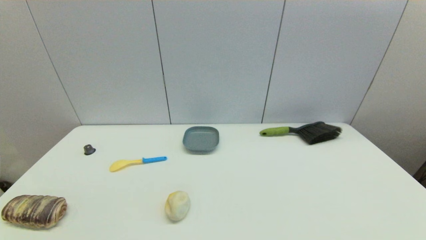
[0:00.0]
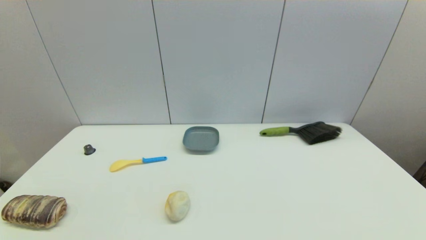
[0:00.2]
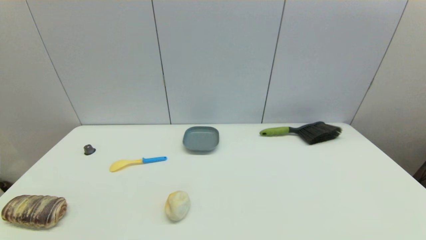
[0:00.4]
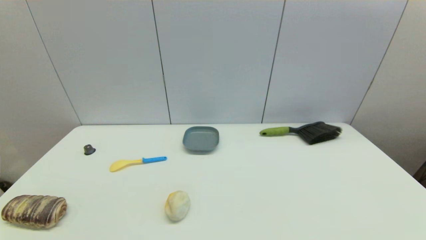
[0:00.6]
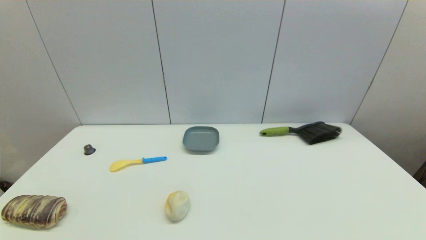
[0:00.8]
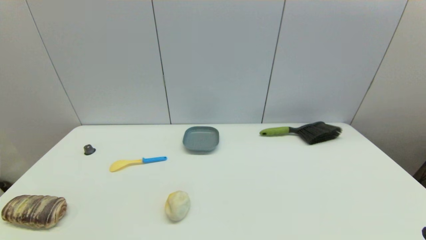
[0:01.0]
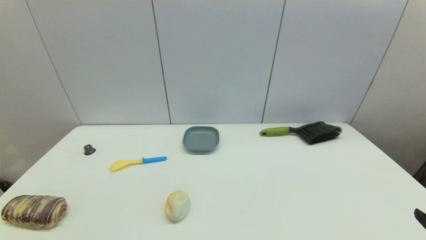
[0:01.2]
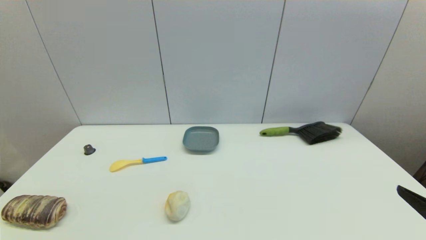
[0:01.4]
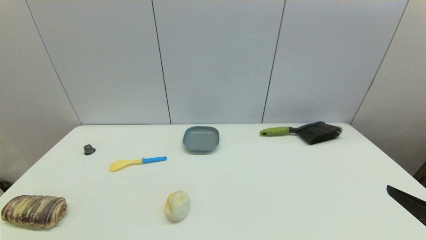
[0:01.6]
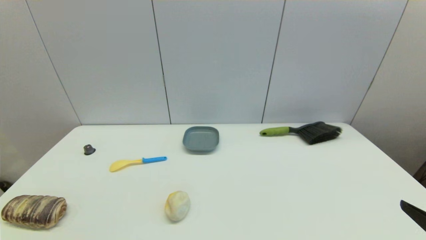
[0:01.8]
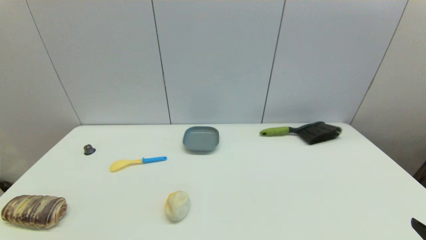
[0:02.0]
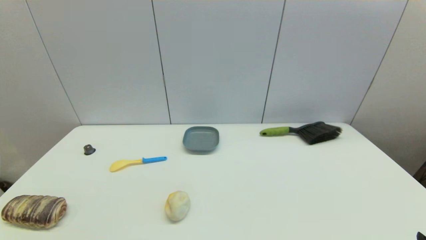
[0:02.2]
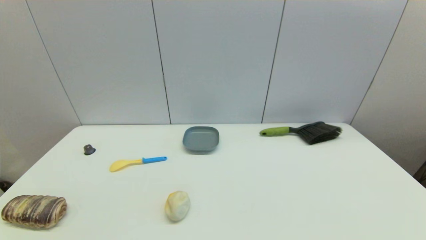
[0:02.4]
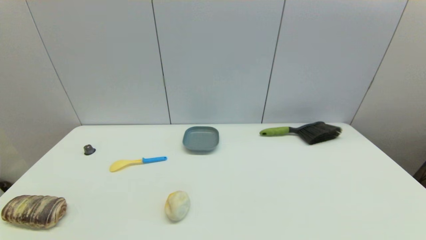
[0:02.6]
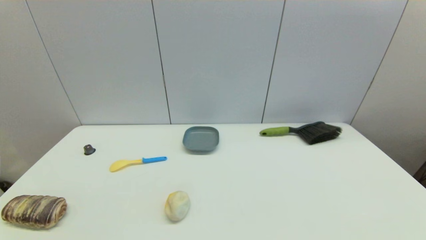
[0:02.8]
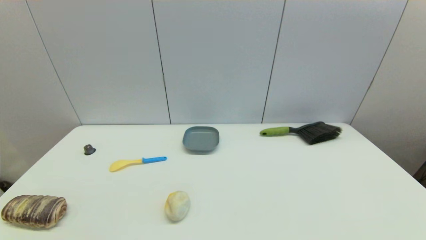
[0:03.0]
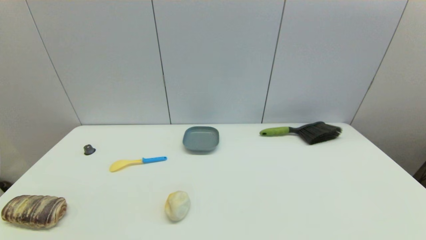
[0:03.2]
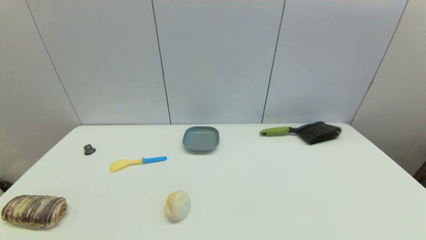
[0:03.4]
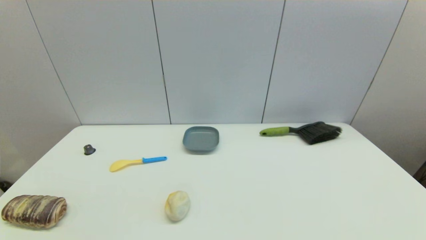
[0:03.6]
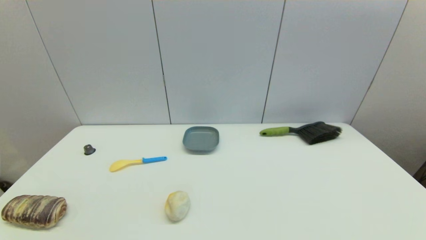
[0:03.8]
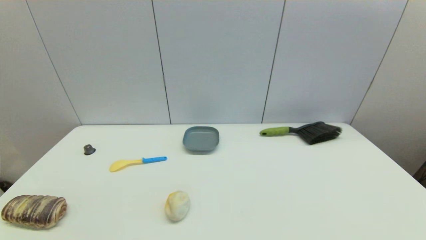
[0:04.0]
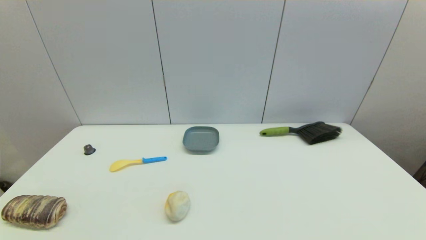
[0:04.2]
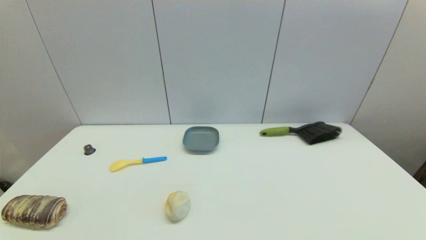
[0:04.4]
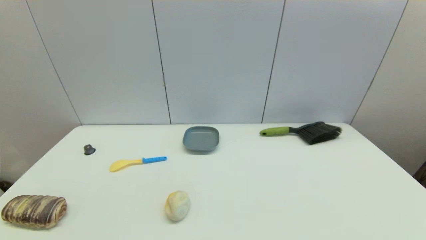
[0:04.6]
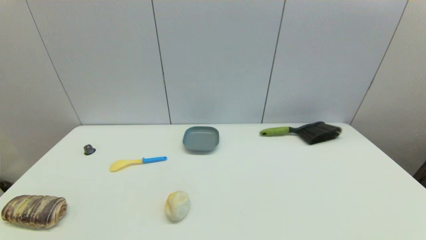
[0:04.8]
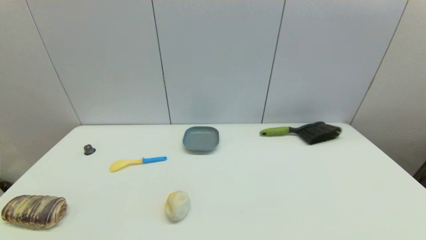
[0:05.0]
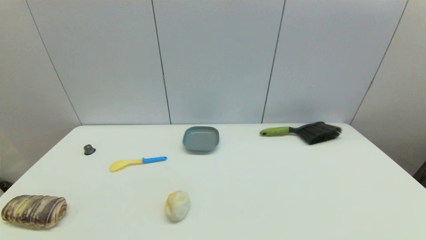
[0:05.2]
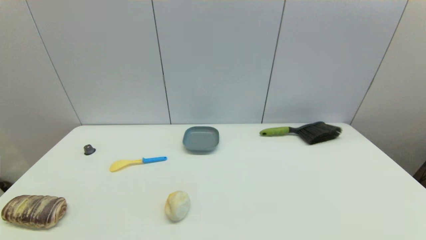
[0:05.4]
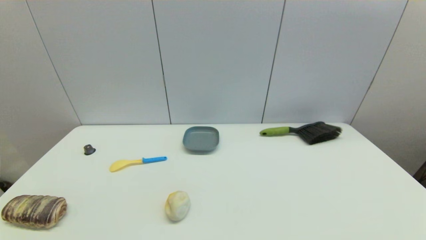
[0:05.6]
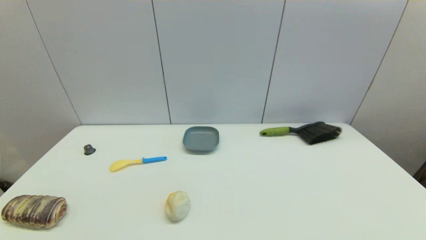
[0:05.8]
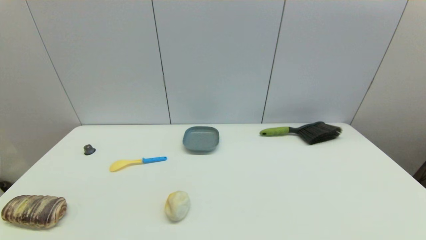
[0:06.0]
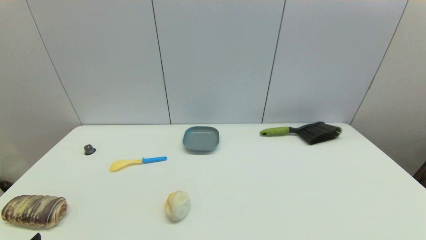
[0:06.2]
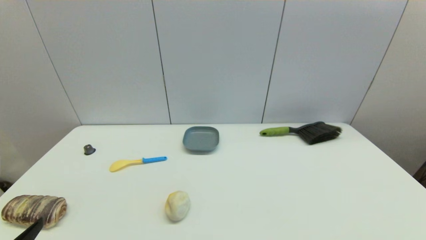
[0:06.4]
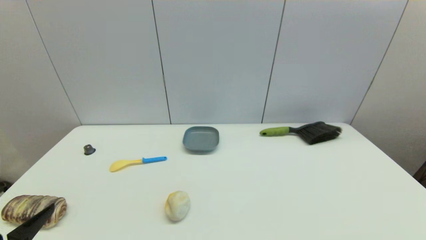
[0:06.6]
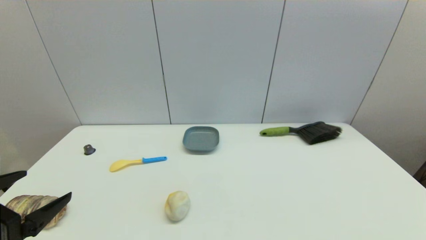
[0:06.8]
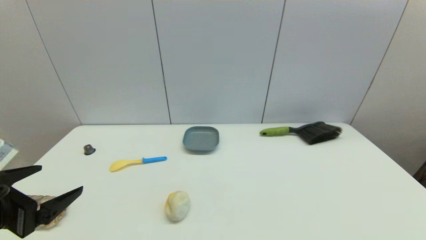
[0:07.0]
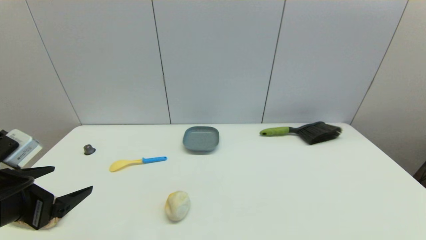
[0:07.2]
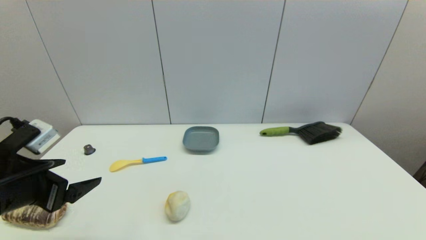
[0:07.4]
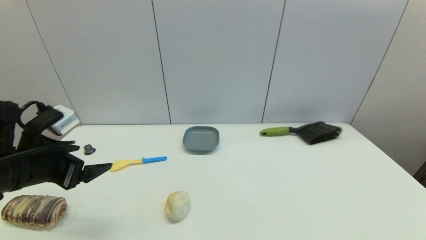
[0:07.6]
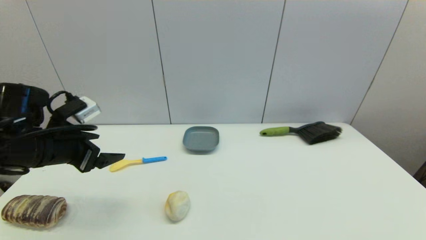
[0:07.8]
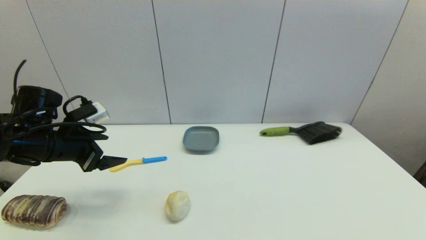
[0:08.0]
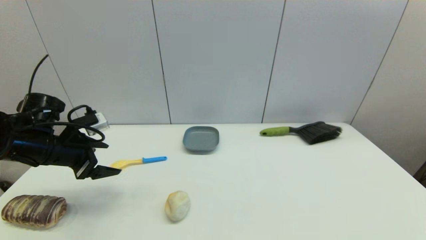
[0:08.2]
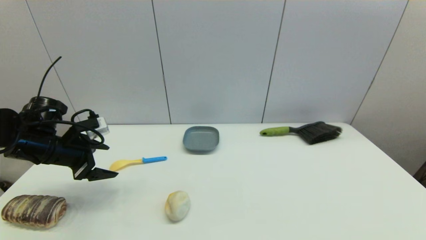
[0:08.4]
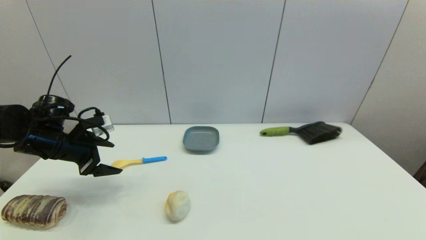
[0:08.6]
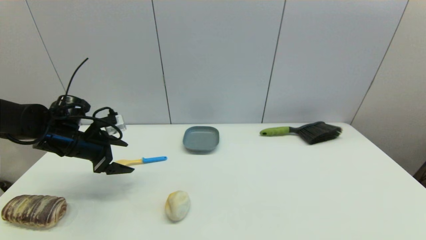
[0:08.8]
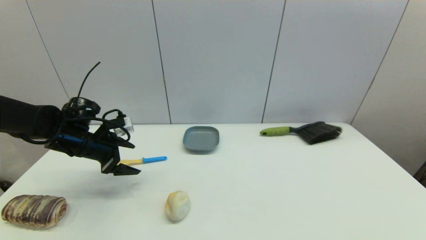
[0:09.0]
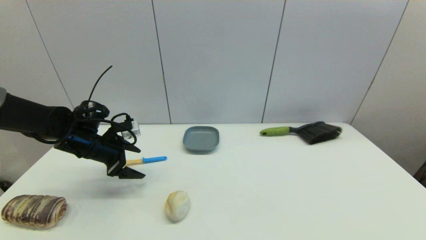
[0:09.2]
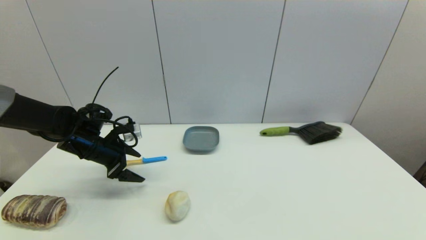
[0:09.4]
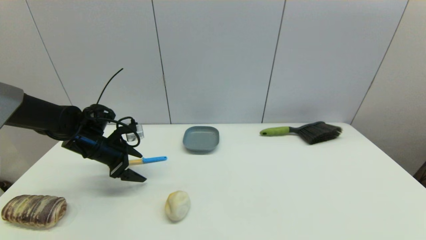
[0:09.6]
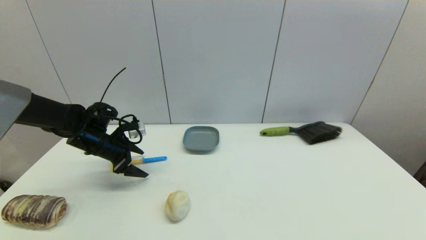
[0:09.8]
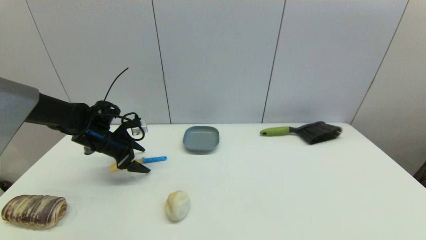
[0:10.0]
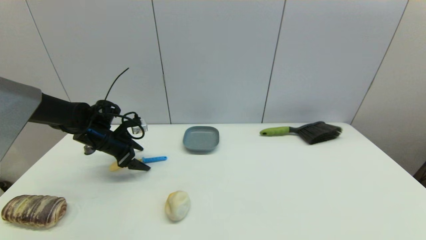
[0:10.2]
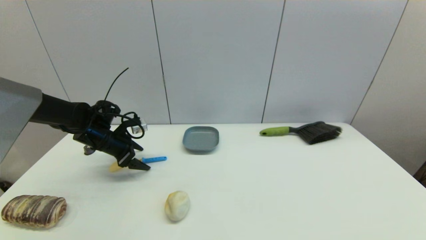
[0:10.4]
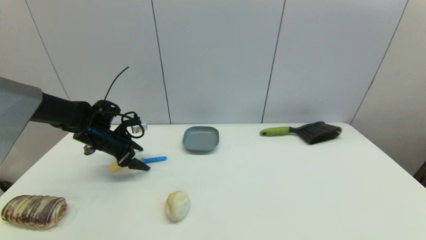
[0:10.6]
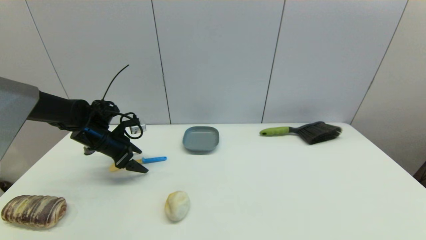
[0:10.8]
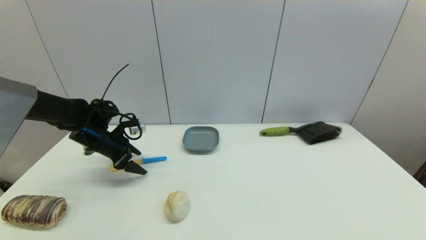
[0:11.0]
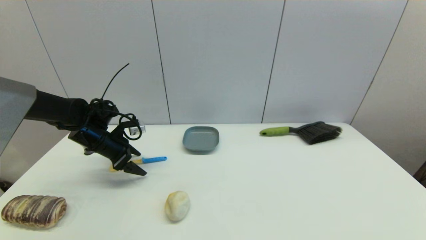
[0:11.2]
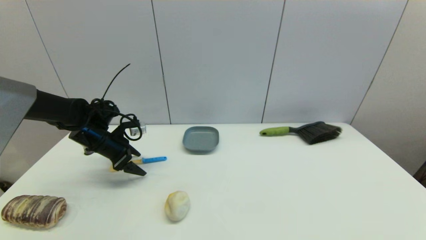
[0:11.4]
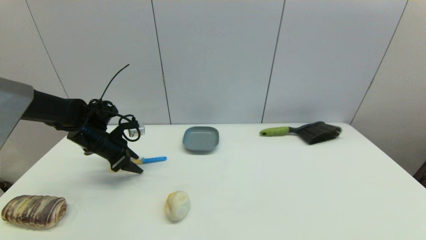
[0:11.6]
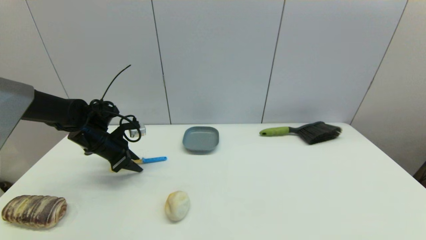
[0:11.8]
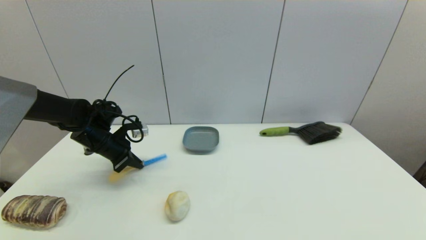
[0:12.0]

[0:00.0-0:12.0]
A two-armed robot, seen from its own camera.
0:00.0 to 0:01.6: The right gripper shifts some 15 cm upward and forward.
0:01.6 to 0:03.0: The right gripper goes some 15 cm downward and backward.
0:06.0 to 0:07.6: The left gripper shifts about 20 cm forward and upward.
0:07.6 to 0:09.0: The left gripper moves forward and downward, roughly 15 cm.
0:09.0 to 0:10.4: The left gripper goes approximately 5 cm forward.
0:10.4 to 0:12.0: The left gripper closes its fingers.

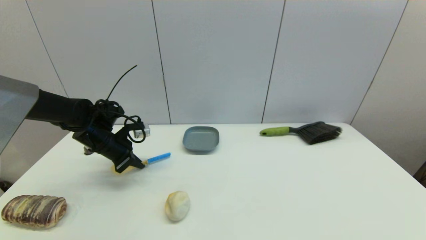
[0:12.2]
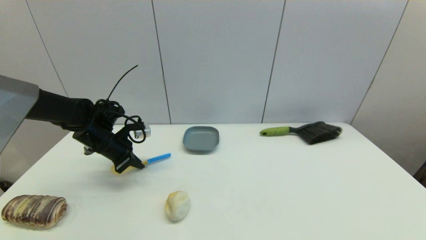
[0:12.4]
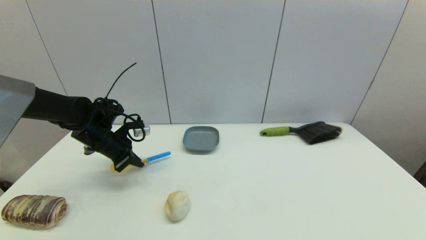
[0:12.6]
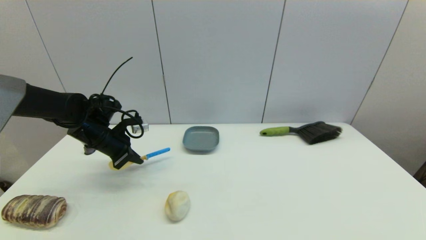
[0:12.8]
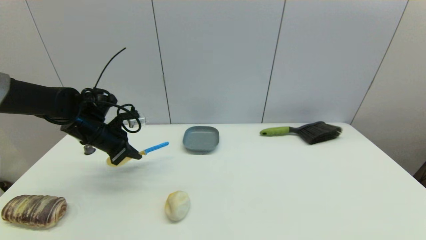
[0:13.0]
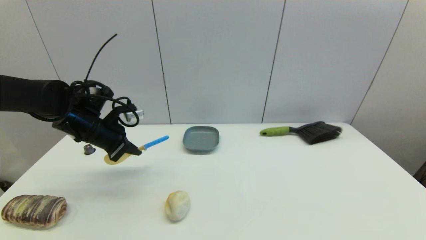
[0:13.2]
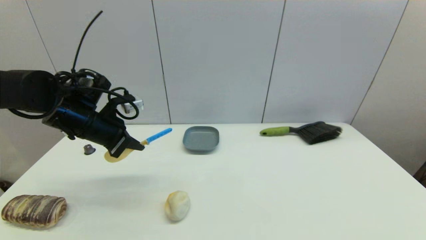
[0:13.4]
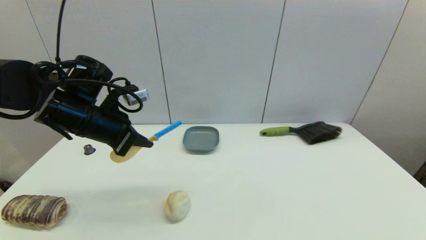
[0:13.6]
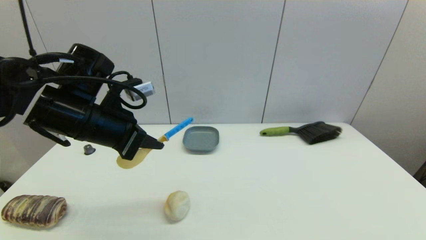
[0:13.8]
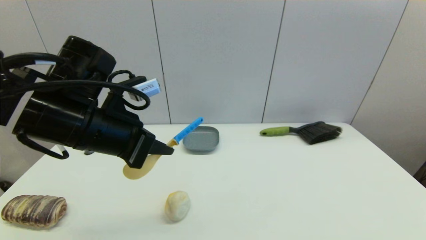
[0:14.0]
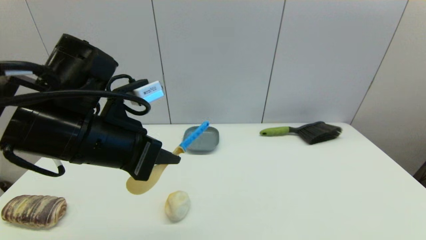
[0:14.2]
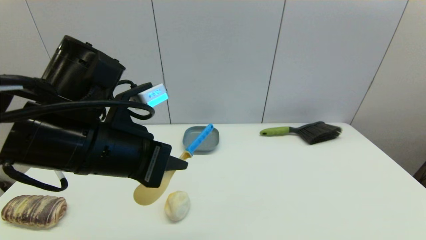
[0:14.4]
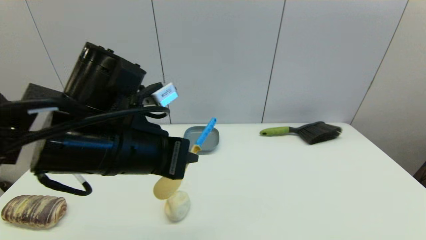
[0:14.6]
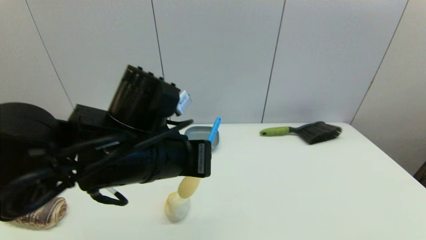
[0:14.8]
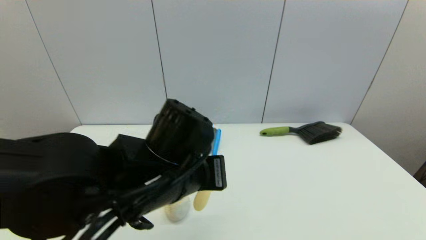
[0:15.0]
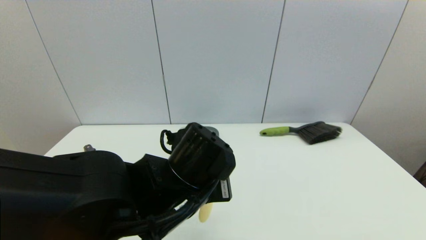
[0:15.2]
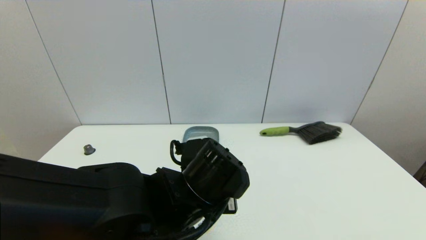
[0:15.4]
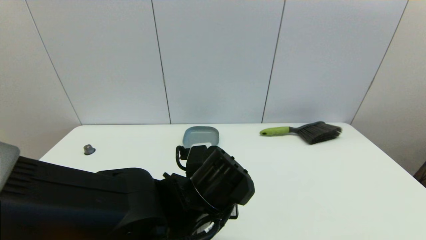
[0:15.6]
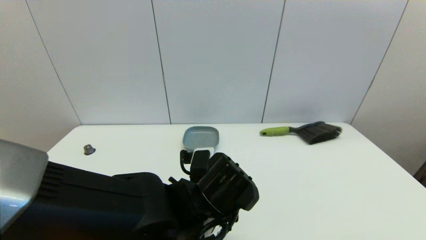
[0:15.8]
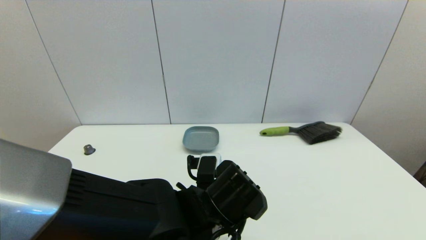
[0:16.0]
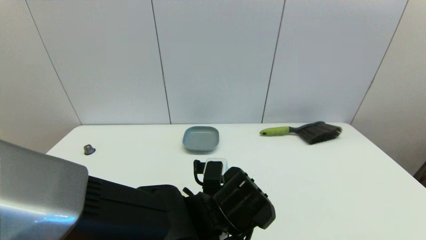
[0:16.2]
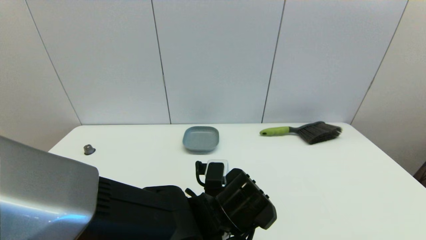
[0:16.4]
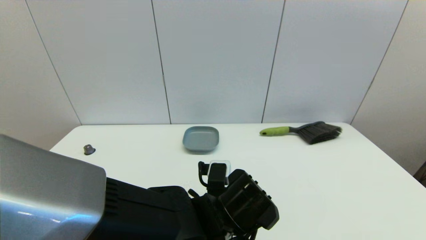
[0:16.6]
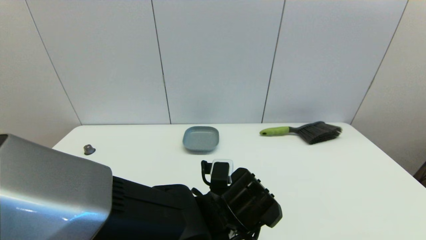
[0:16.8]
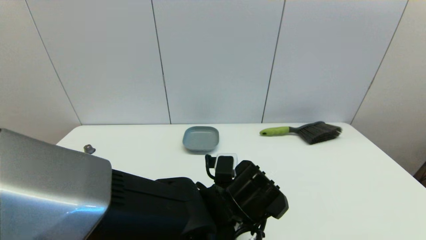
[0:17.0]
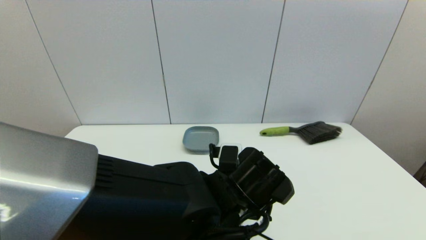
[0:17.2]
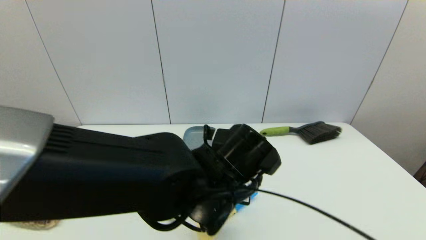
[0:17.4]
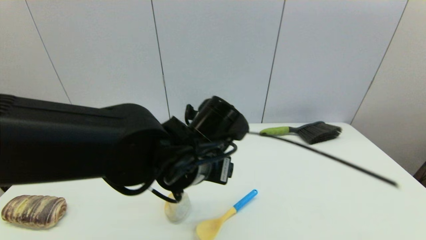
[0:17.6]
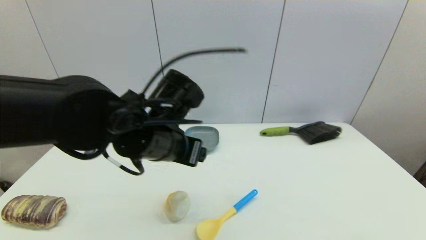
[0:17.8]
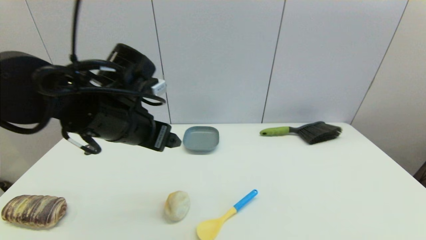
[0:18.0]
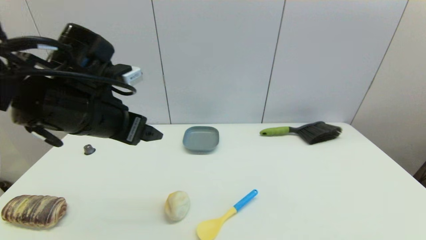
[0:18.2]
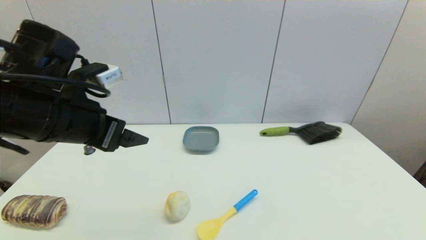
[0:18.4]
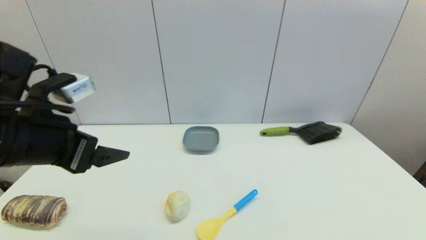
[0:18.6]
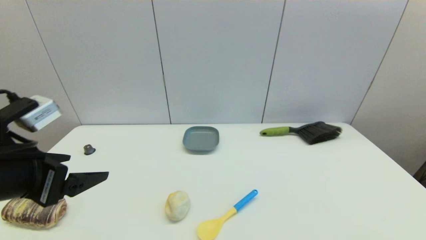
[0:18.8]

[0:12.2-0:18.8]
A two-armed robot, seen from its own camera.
Step, 0:12.6 to 0:16.8: Place the spoon on the table with left gripper.
0:12.2 to 0:13.8: The left gripper heads upward, backward and to the right, covering some 20 cm.
0:13.8 to 0:15.4: The left gripper travels to the right, downward and backward by approximately 20 cm.
0:15.4 to 0:17.2: The left gripper is displaced to the right by about 5 cm, and opens its fingers.
0:17.2 to 0:18.8: The left gripper is displaced to the left by about 30 cm.
